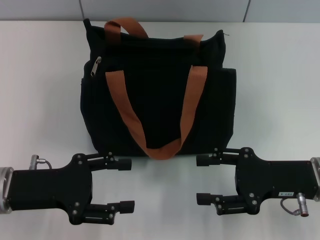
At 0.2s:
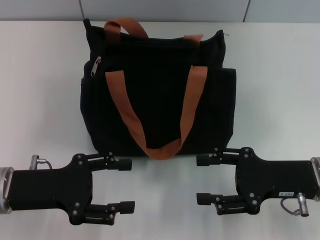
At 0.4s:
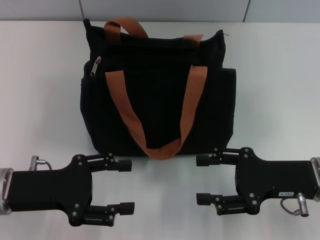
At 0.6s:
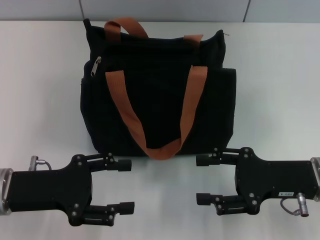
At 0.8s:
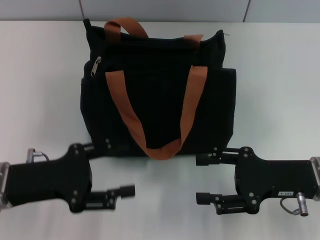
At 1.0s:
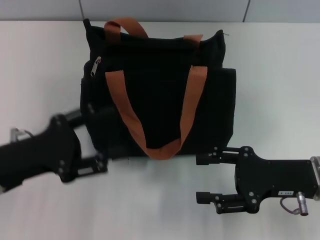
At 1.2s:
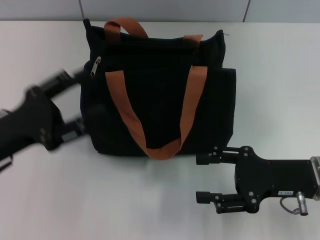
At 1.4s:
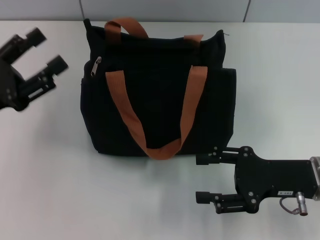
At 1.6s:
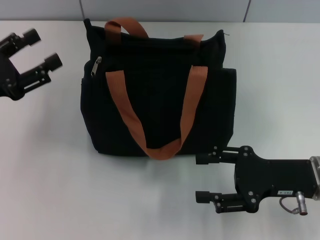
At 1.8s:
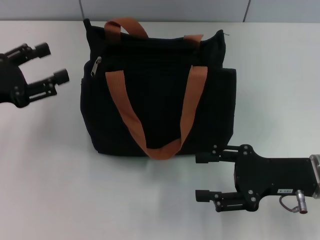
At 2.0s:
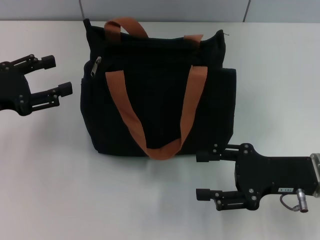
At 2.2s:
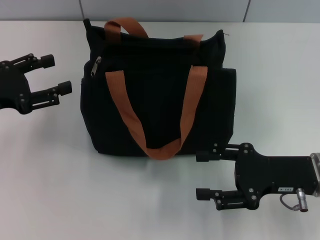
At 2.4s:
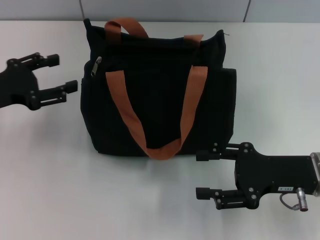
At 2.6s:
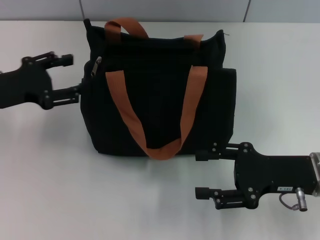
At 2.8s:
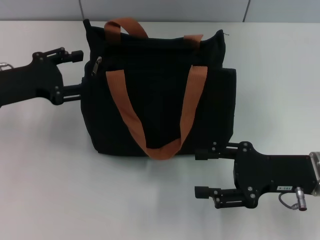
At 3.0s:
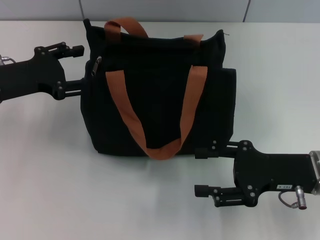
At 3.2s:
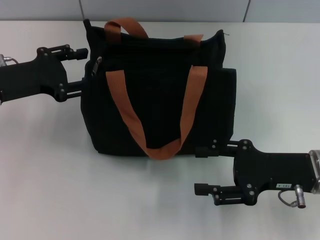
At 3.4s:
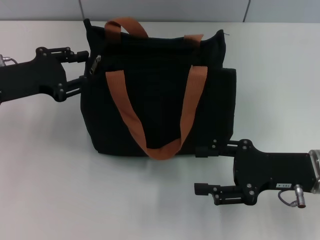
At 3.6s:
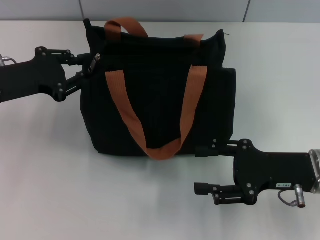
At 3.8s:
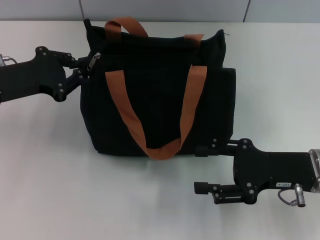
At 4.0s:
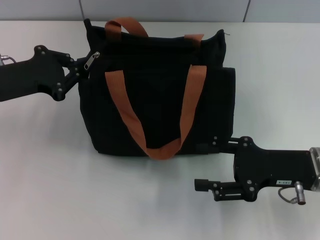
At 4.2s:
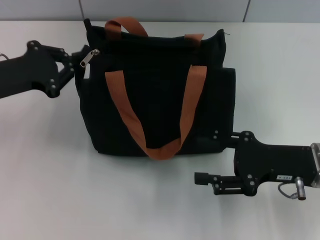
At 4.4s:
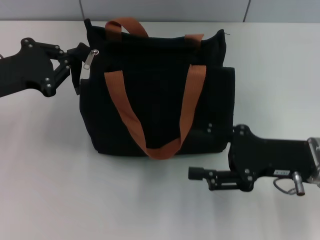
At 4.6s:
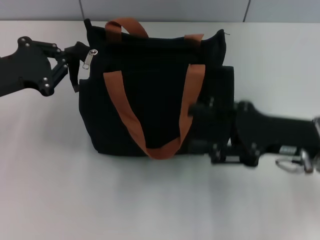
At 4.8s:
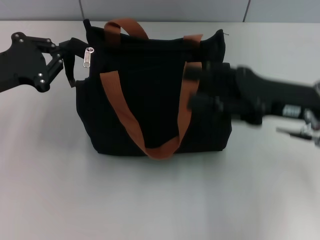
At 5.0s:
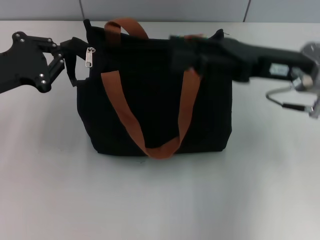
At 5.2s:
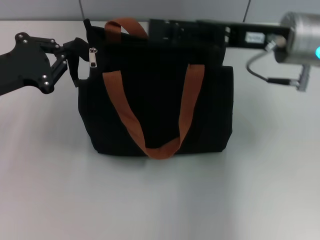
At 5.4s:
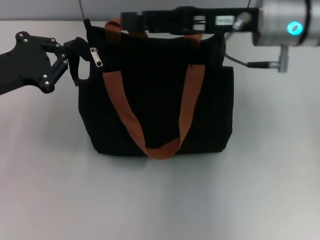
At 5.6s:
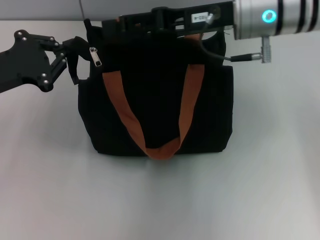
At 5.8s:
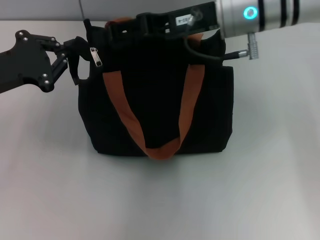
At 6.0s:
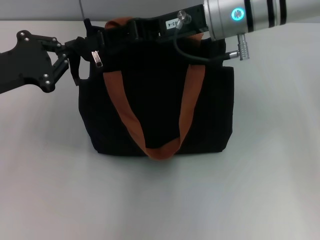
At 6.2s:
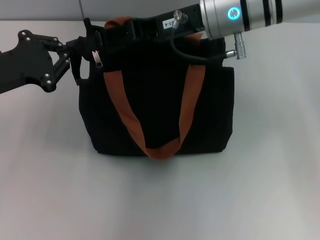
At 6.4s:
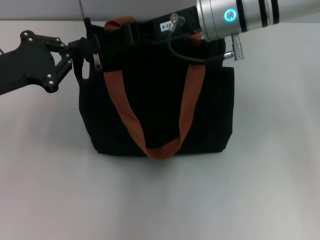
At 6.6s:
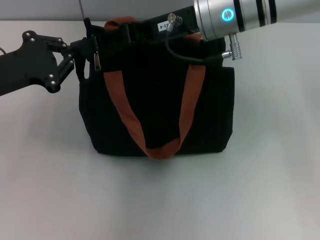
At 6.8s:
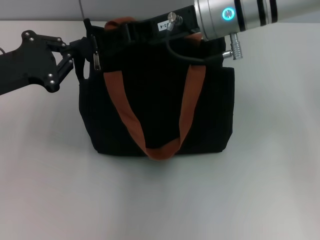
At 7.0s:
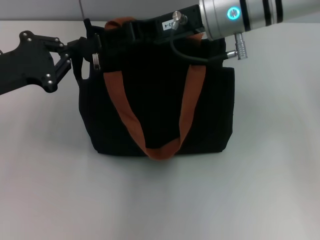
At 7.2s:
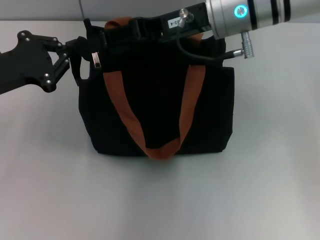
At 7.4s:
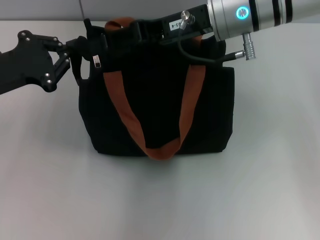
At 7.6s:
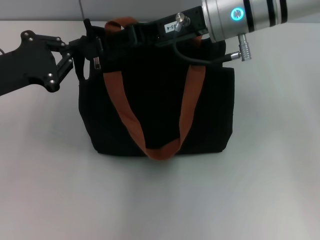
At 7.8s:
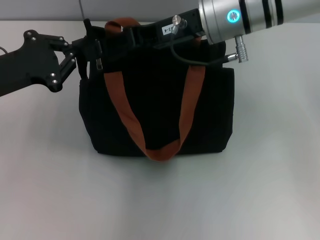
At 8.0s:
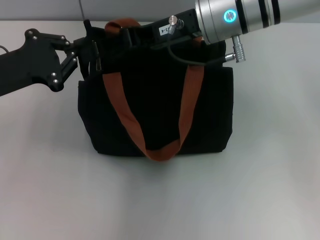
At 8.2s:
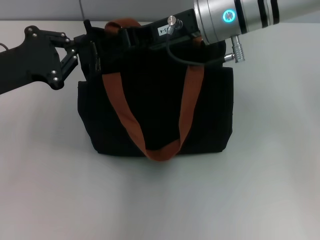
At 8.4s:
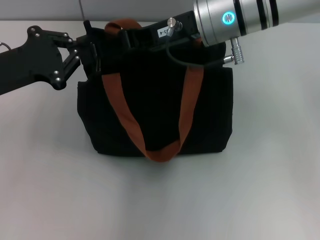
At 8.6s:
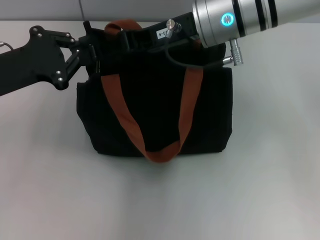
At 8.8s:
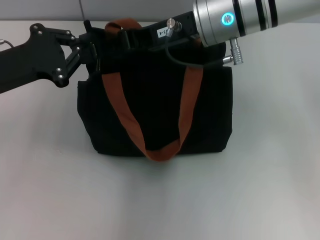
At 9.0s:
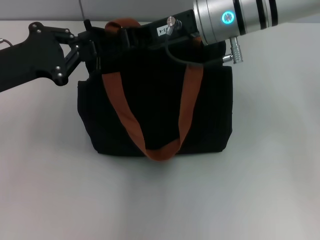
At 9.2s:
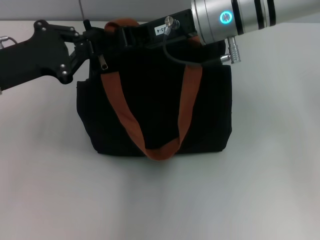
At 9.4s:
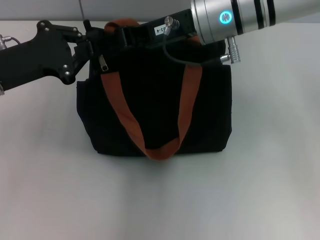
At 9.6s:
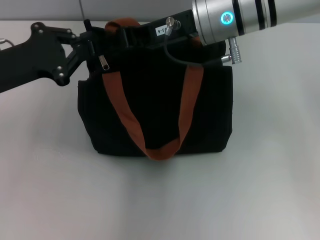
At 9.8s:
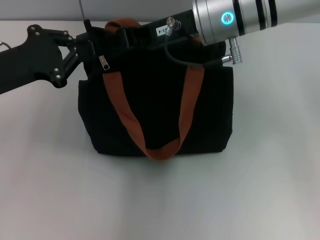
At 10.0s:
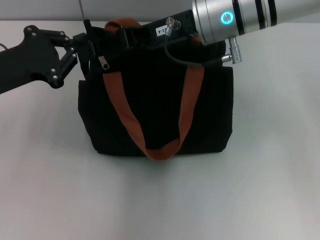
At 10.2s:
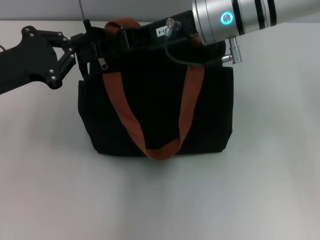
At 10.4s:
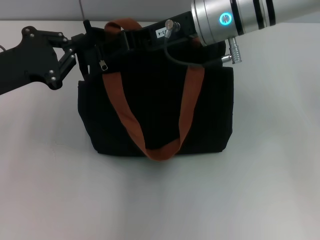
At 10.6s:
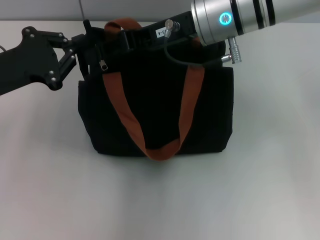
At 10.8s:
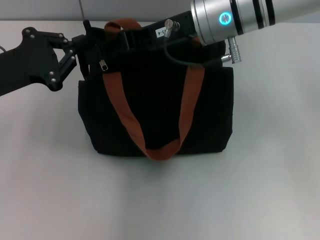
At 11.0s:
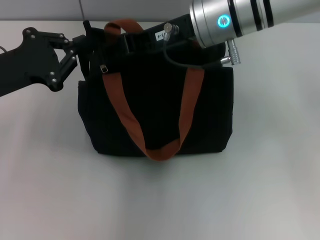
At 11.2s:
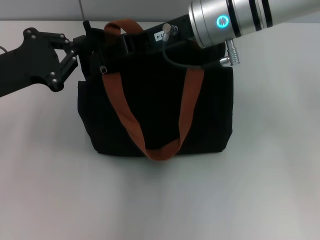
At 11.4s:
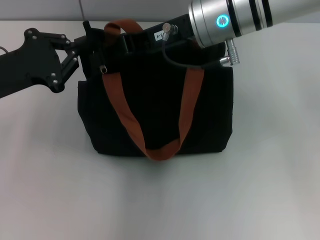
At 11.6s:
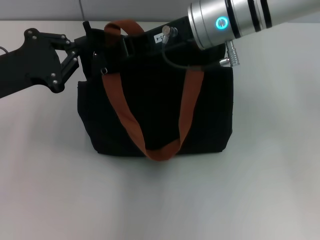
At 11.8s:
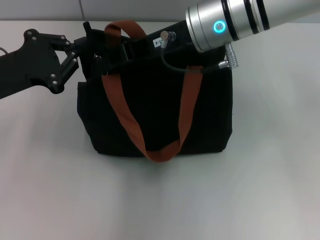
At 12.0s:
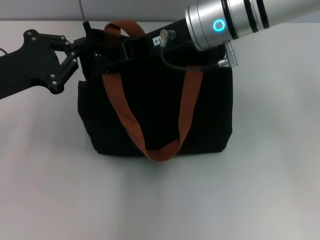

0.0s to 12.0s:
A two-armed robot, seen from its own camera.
0.0s to 1.6s: The left gripper moves to the left and forward, approximately 10 cm.
1.6s to 3.0s: The left gripper goes about 5 cm forward.
3.0s to 4.4s: The left gripper closes up.
4.4s to 6.0s: The right gripper moves forward, to the left and upward, roughly 25 cm.
6.0s to 7.6s: Both grippers stay put.
7.6s to 9.0s: There are only small adjustments of the grippers.
9.0s to 10.4s: Both grippers stay about where they are.
10.4s to 12.0s: The right gripper closes up.

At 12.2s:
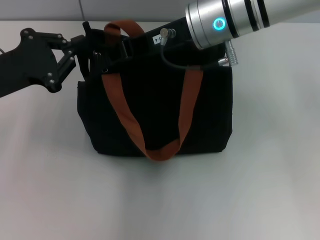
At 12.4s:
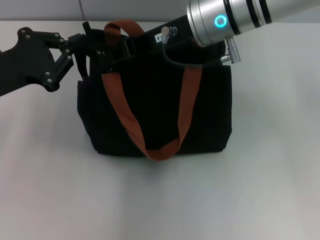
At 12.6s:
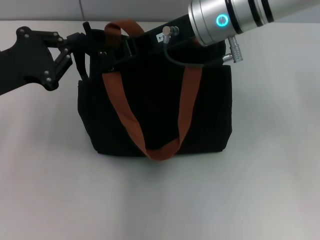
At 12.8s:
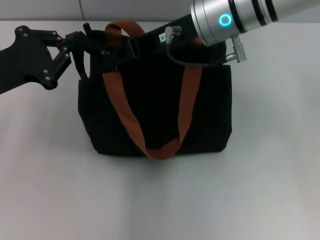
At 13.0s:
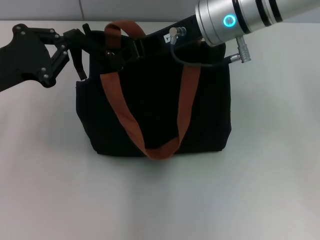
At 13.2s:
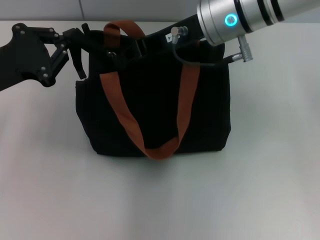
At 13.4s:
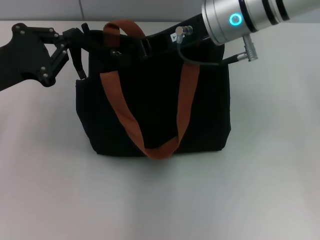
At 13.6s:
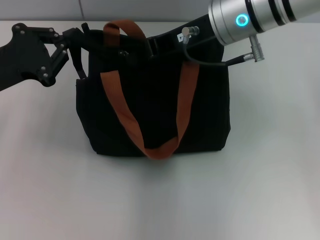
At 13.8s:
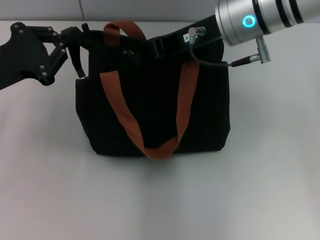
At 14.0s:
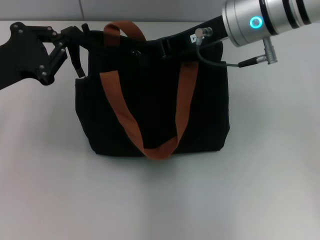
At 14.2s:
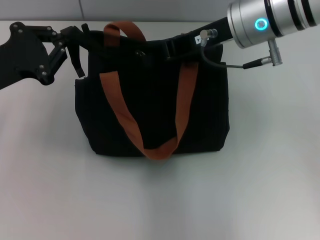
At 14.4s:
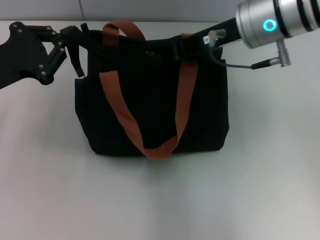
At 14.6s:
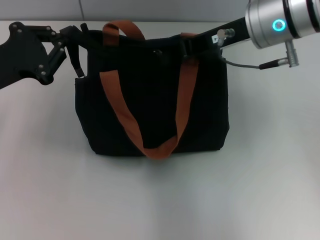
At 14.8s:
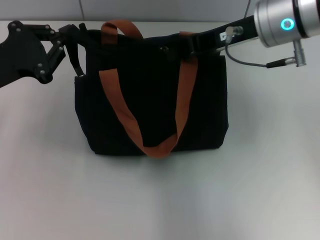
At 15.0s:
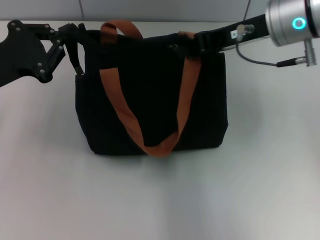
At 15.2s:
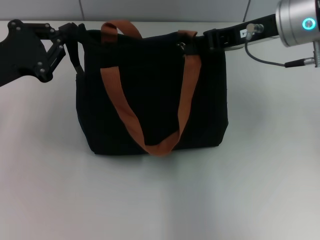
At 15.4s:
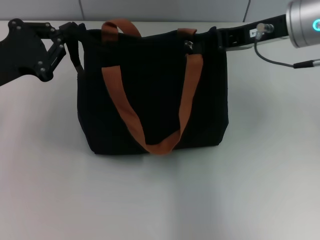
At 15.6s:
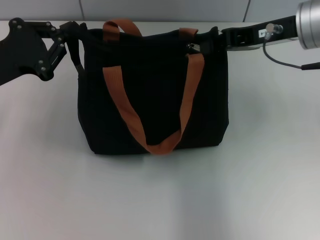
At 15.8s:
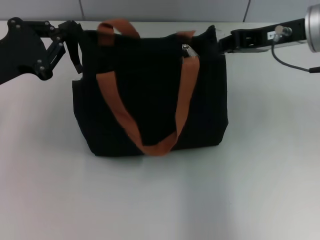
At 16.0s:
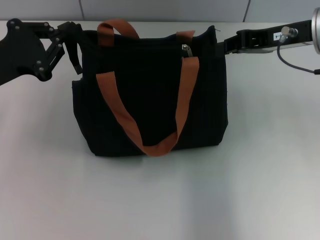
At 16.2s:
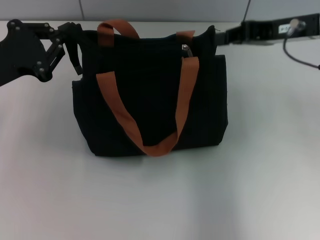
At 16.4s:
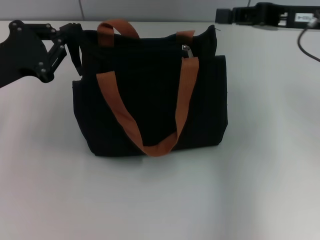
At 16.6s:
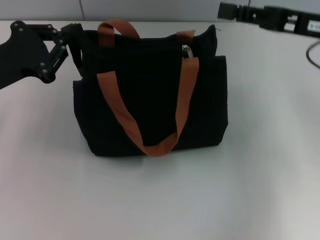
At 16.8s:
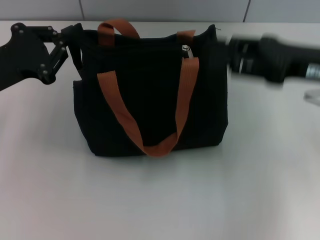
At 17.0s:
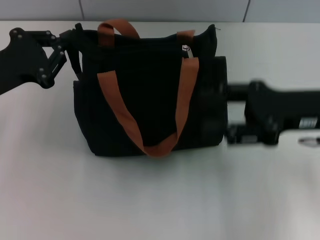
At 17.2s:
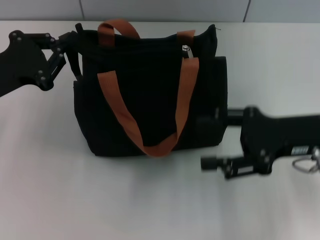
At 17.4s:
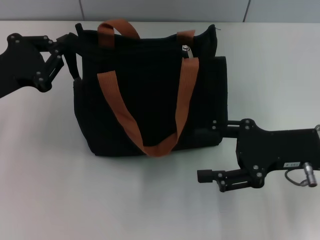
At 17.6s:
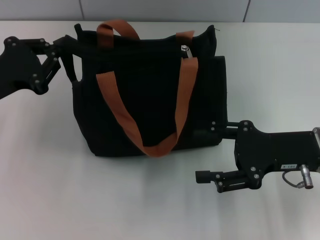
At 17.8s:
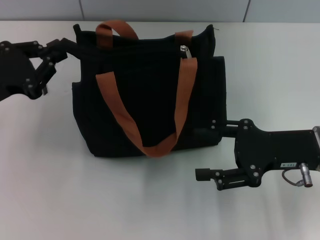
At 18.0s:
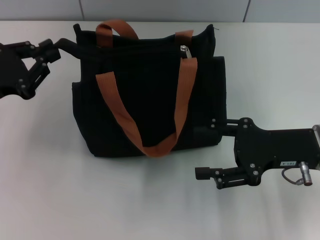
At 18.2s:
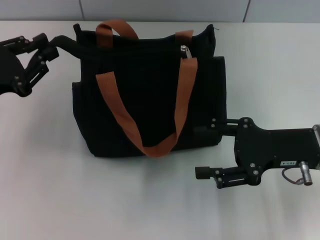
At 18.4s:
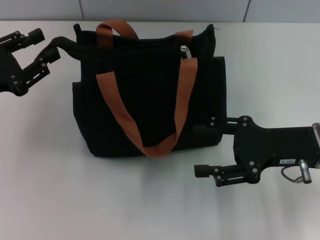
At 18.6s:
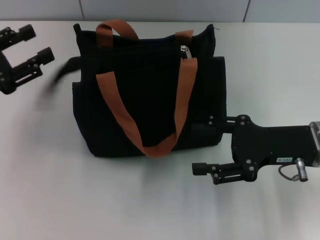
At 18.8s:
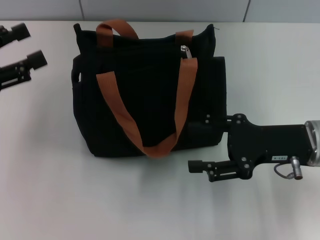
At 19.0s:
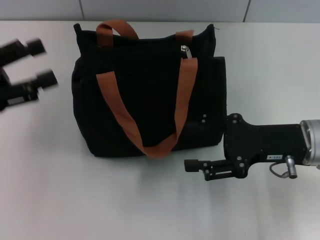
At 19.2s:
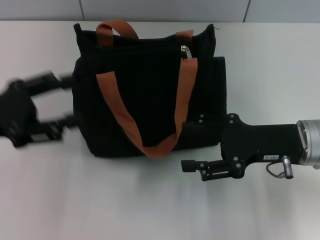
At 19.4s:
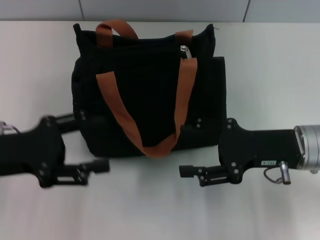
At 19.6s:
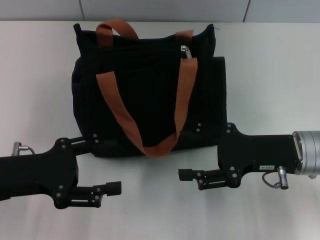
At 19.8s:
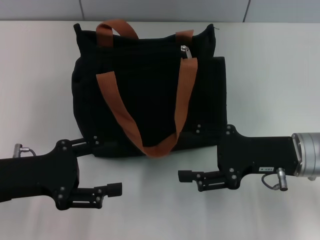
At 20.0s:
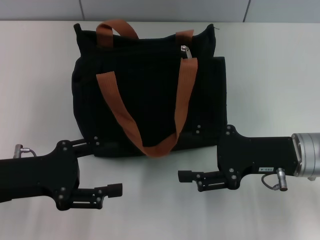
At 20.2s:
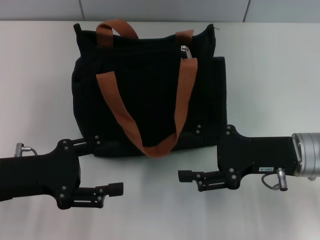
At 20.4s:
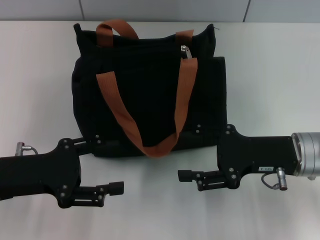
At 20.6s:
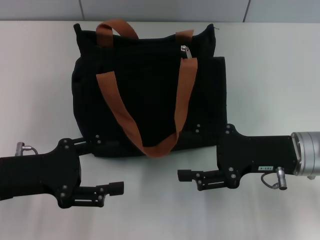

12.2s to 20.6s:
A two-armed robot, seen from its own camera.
Step, 12.2s to 16.4s: Pull up the zipper with your right hand.
Step, 16.6s to 18.6s: Grab the zipper with your left hand.
12.2s to 13.6s: The grippers make only small movements.
13.6s to 15.0s: The right gripper shifts roughly 5 cm to the right.
15.0s to 16.4s: The right gripper heads to the right, covering roughly 10 cm.
16.4s to 17.8s: The right gripper travels downward and backward by roughly 15 cm, and opens.
17.8s to 19.2s: The left gripper opens its fingers.
19.2s to 20.6s: The left gripper goes some 5 cm downward.

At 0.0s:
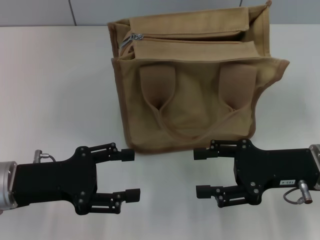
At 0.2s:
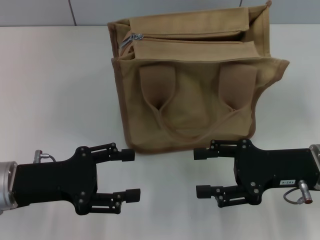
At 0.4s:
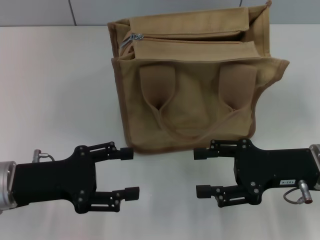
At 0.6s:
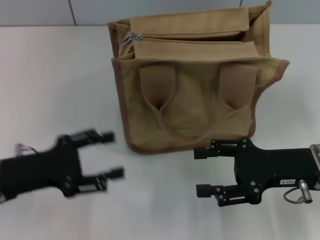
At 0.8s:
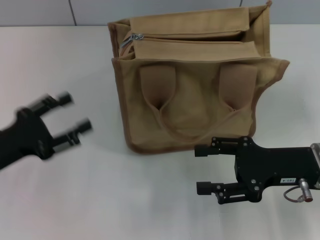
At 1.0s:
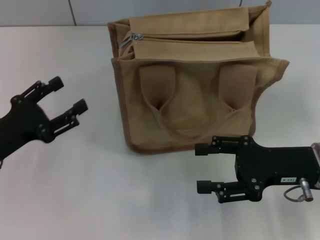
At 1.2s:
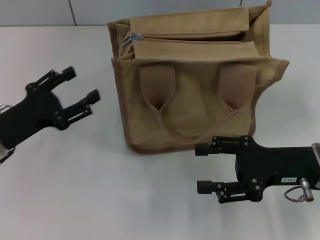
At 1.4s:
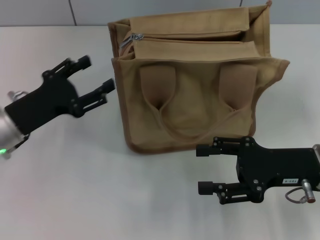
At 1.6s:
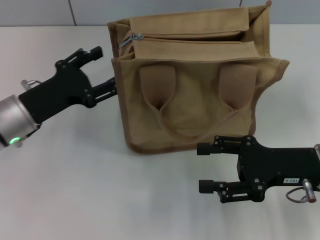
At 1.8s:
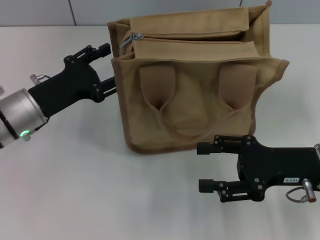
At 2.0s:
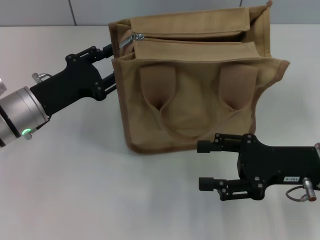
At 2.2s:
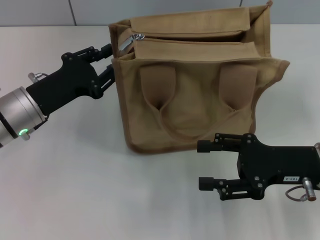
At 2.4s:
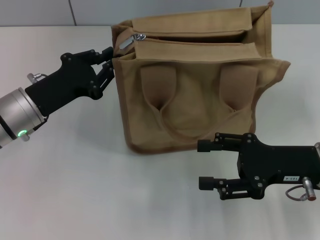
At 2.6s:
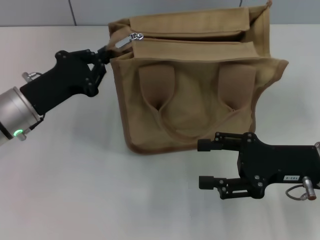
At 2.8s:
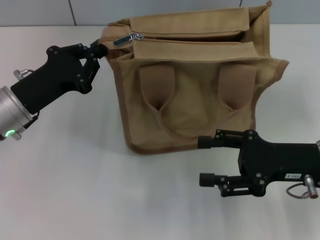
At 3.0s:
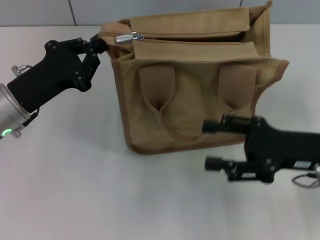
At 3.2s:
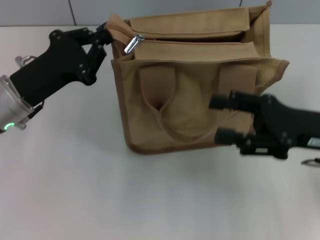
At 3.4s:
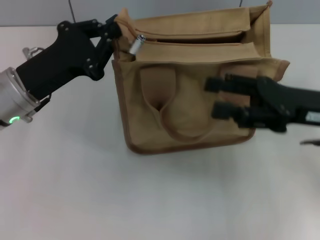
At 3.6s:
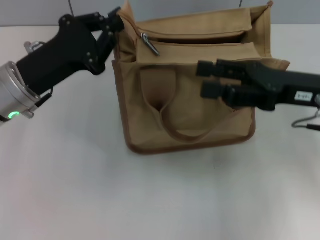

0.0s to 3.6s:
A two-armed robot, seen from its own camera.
0.0s to 1.8s: The left gripper shifts approximately 10 cm forward.
1.8s to 3.6s: The right gripper goes some 10 cm upward and forward, while the left gripper closes up.
